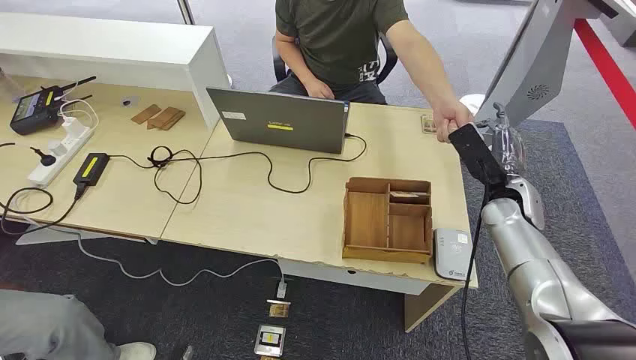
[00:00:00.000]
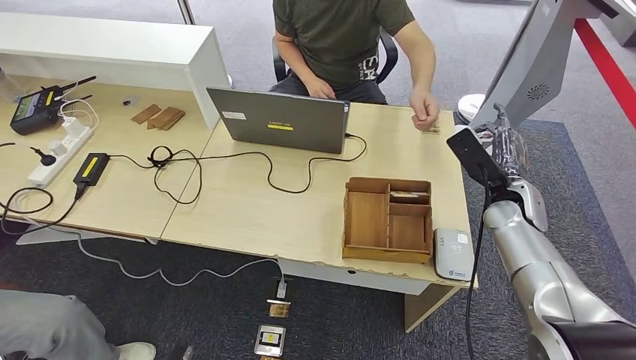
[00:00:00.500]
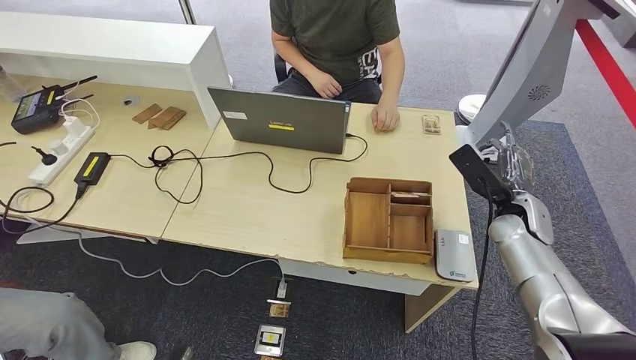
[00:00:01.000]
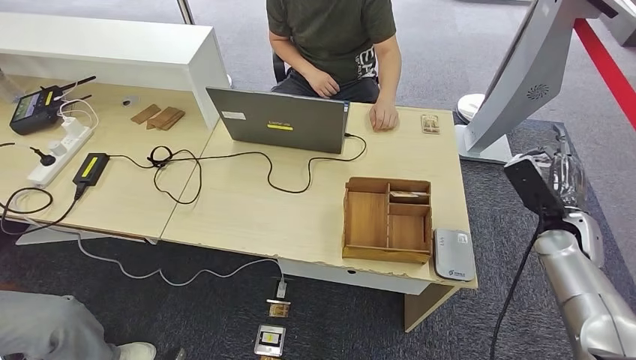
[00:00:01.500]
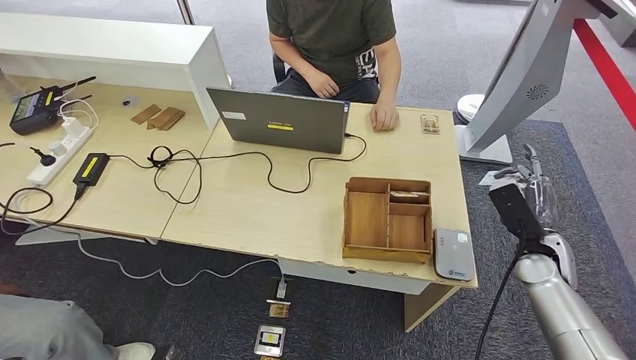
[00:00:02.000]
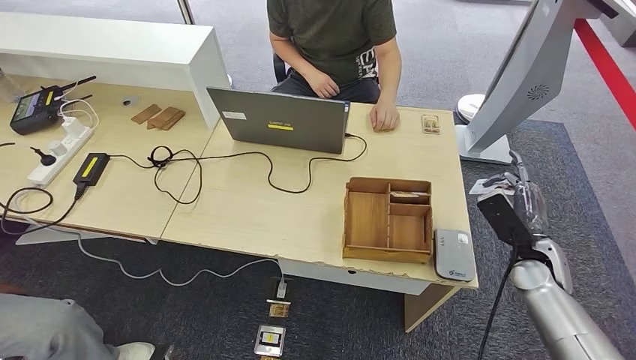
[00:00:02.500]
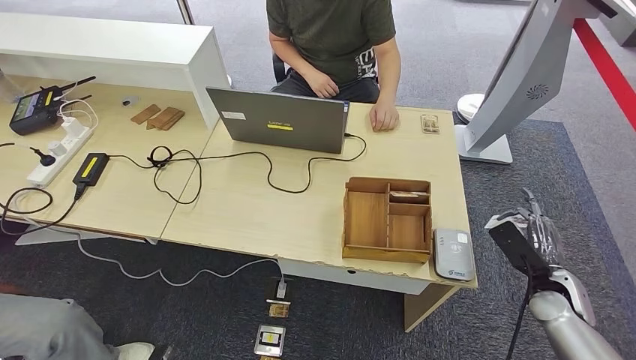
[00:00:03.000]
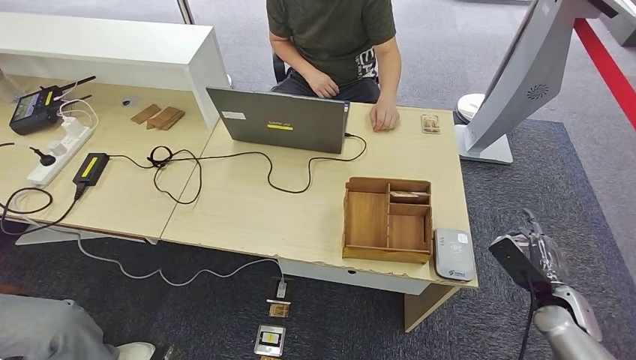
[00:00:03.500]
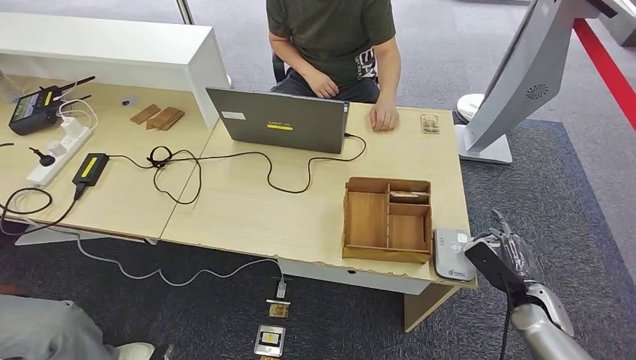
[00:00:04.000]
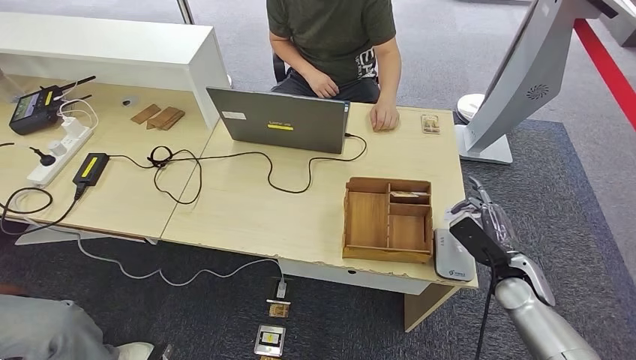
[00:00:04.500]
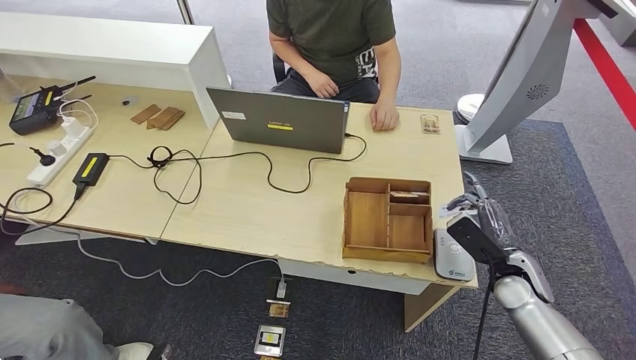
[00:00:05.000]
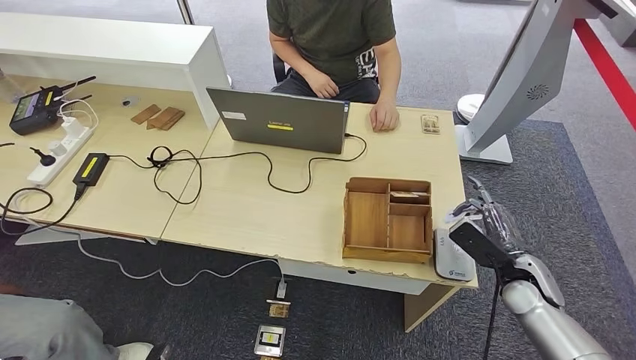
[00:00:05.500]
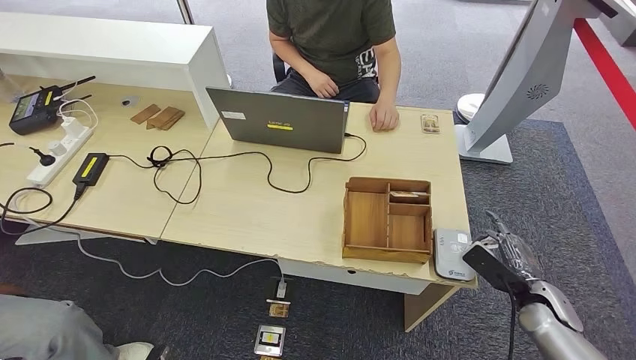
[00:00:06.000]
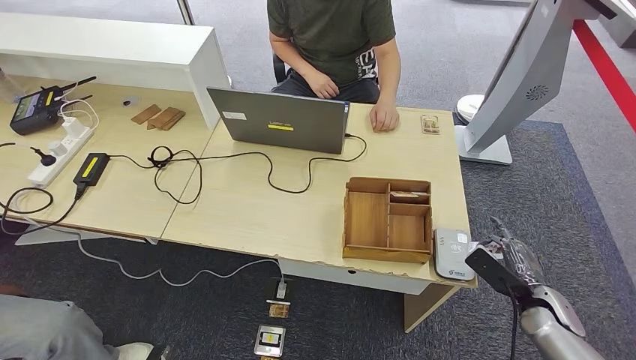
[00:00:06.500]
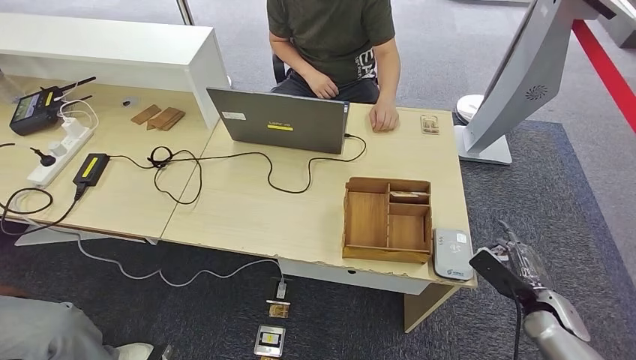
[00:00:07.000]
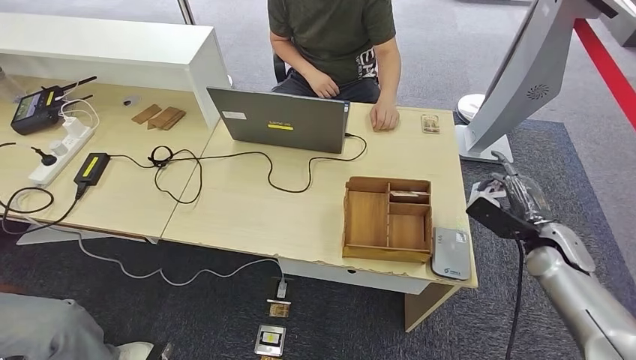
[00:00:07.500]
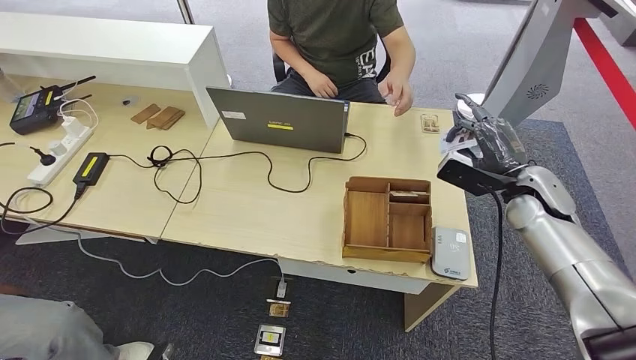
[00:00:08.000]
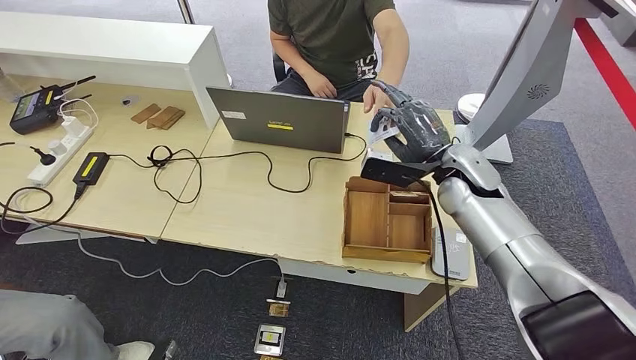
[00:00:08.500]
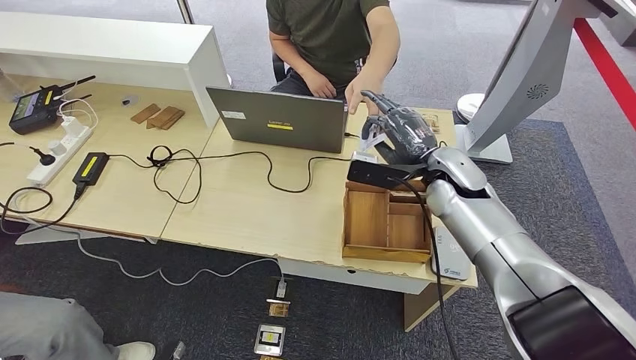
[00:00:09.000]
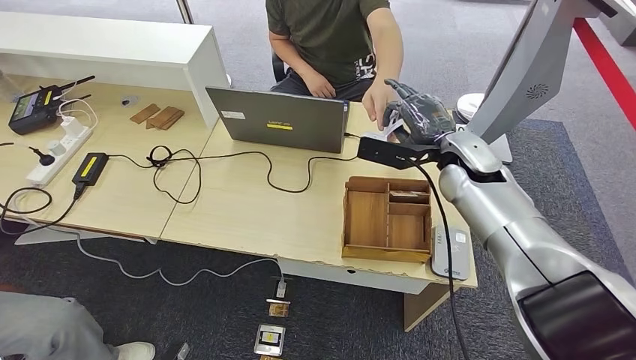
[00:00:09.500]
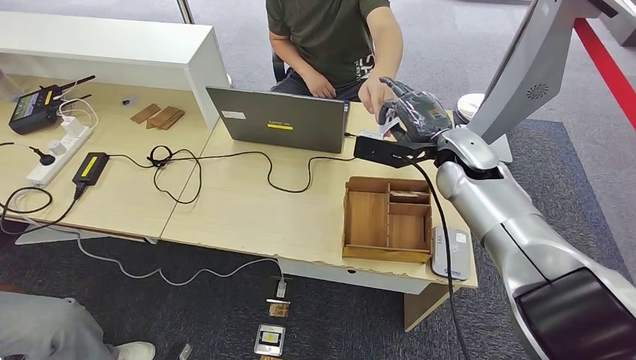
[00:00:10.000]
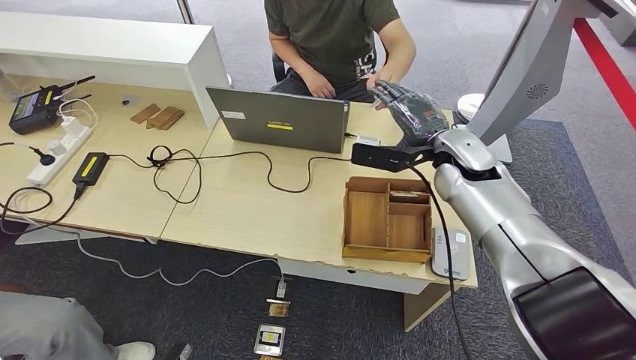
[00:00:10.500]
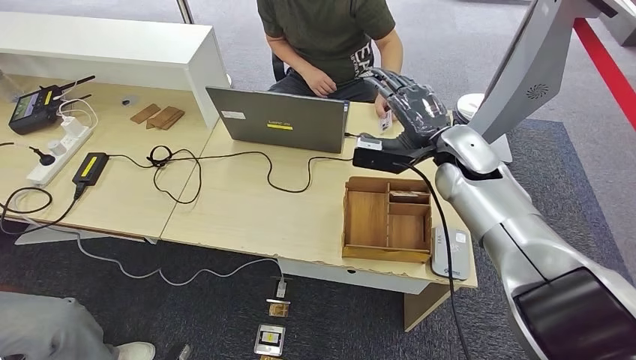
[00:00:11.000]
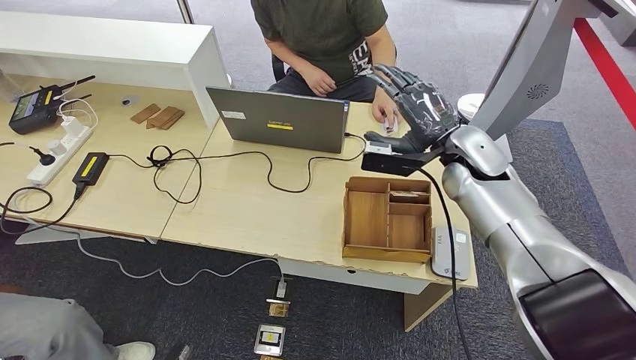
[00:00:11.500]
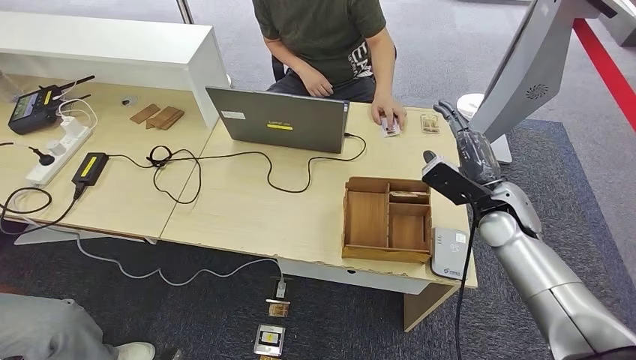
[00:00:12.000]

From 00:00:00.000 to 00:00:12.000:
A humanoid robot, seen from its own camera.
Step, from 00:00:00.000 to 00:00:01.000: Take the ID card from the person's hand.
Step, from 00:00:01.500 to 00:00:07.500: Place the ID card on the card reader.
Step, from 00:00:08.500 to 00:00:11.000: Hand the ID card to the person.
From 00:00:02.000 to 00:00:04.000: The right hand heads downward and backward, covering some 10 cm.
From 00:00:06.000 to 00:00:08.000: The right hand moves upward, forward and to the left, approximately 25 cm.
From 00:00:08.000 to 00:00:10.000: The right hand goes some 15 cm to the left.
From 00:00:10.000 to 00:00:12.000: The right hand moves to the right and downward, roughly 10 cm.

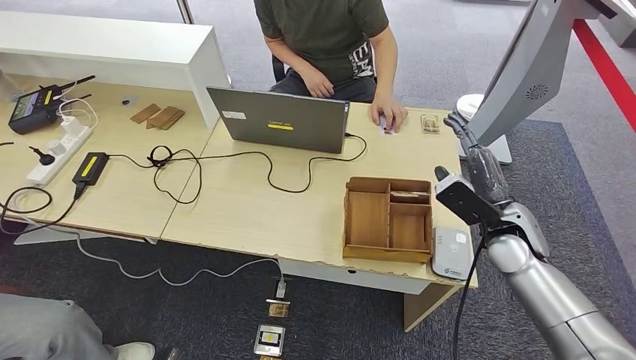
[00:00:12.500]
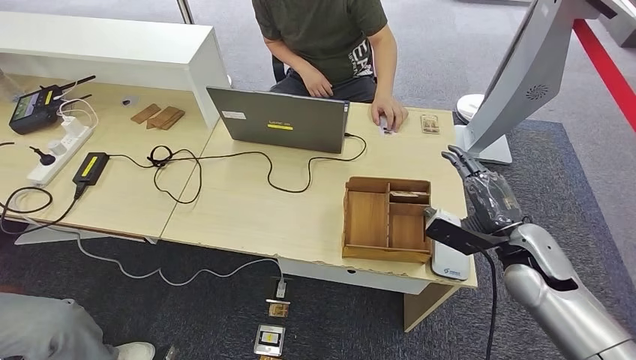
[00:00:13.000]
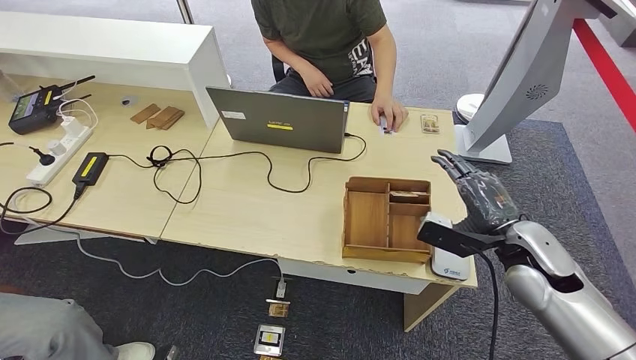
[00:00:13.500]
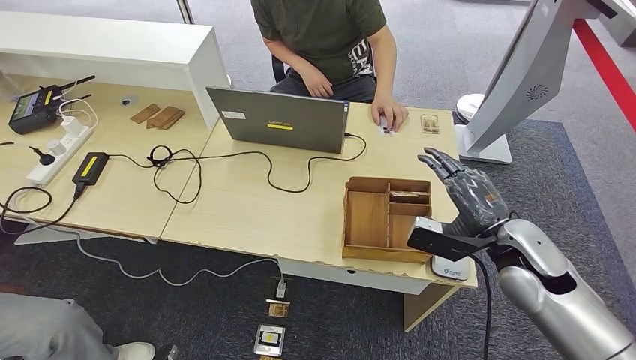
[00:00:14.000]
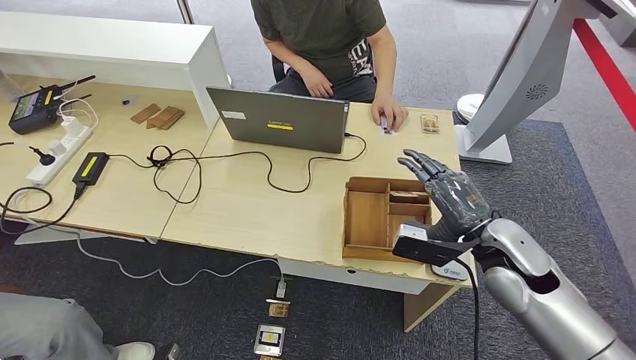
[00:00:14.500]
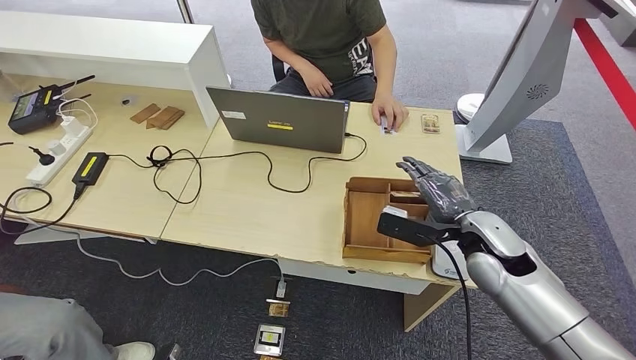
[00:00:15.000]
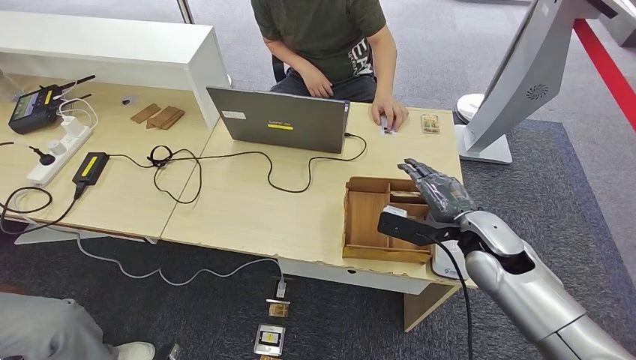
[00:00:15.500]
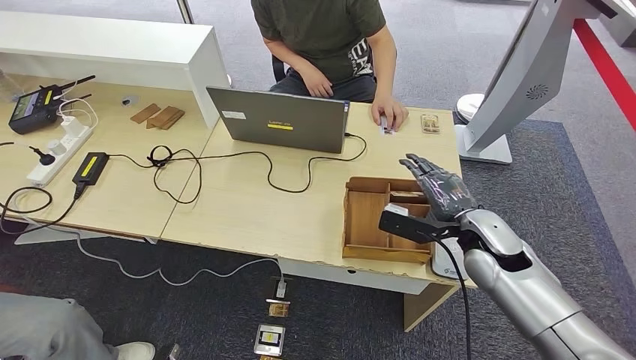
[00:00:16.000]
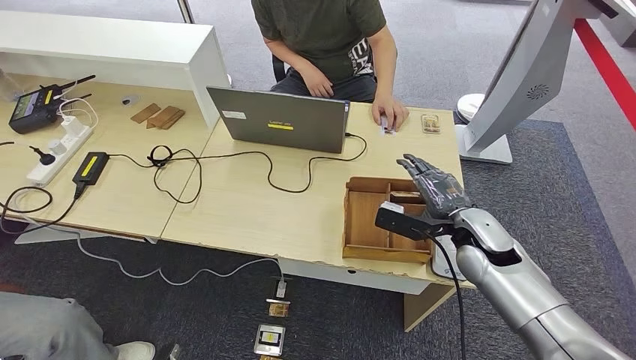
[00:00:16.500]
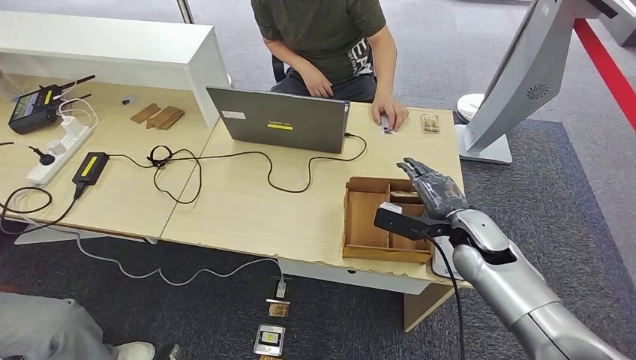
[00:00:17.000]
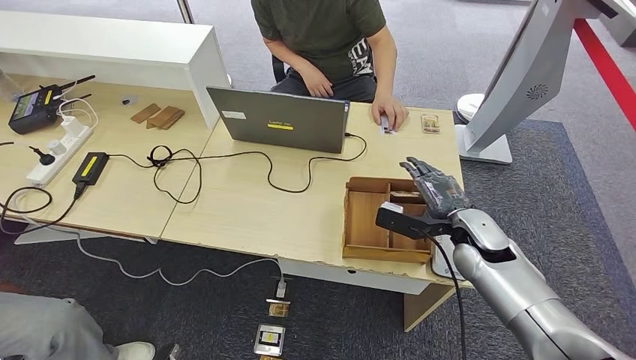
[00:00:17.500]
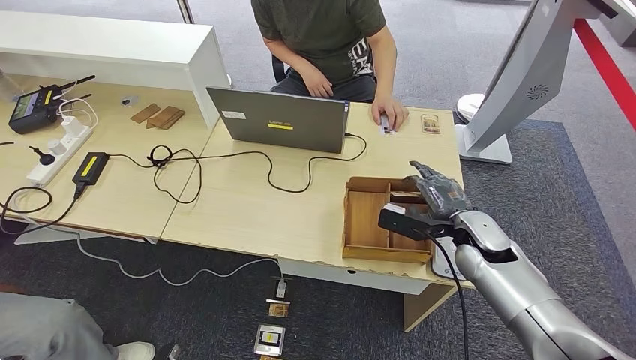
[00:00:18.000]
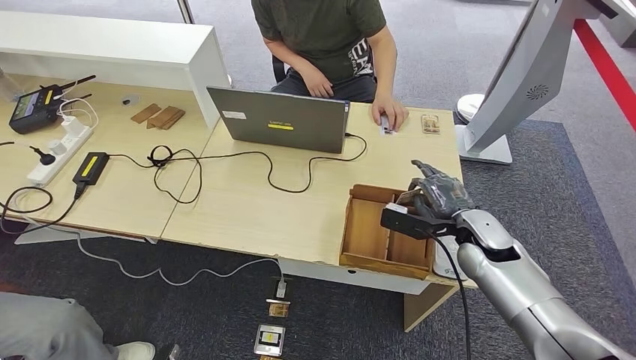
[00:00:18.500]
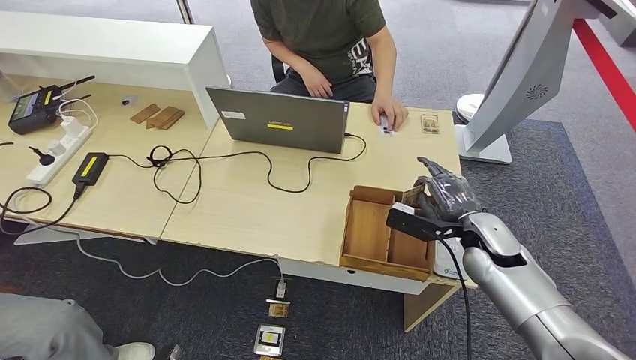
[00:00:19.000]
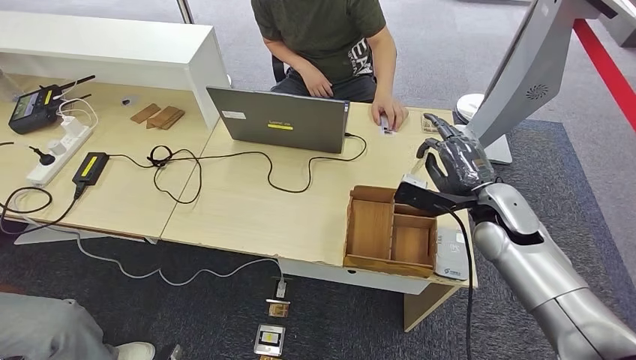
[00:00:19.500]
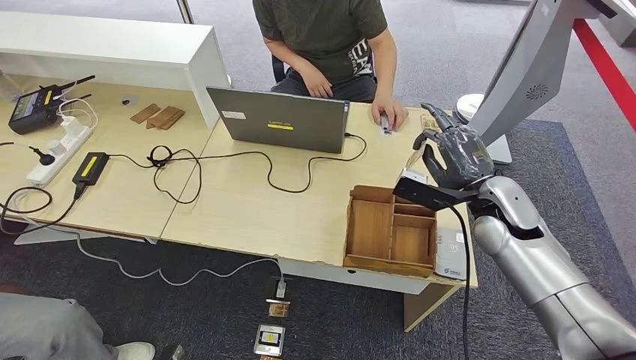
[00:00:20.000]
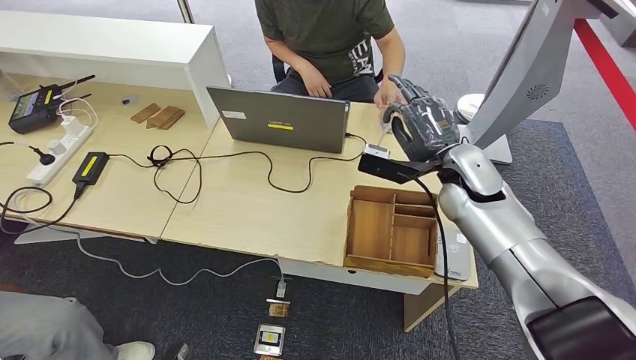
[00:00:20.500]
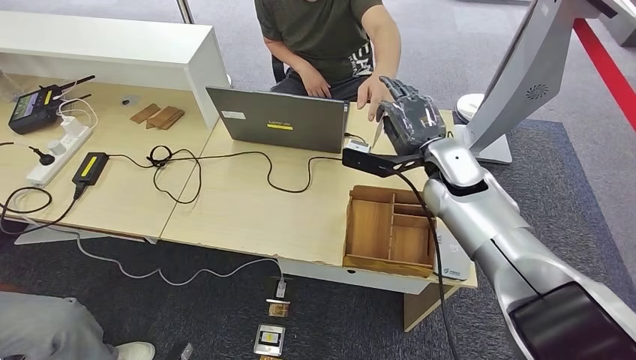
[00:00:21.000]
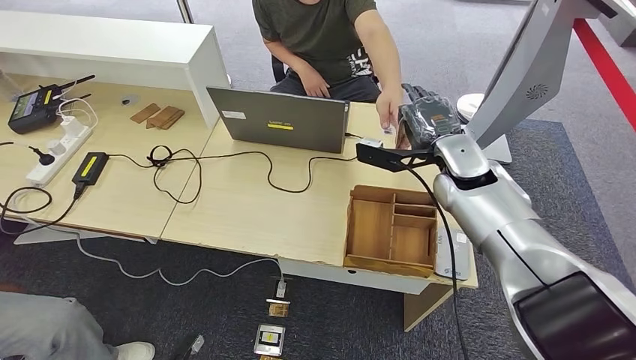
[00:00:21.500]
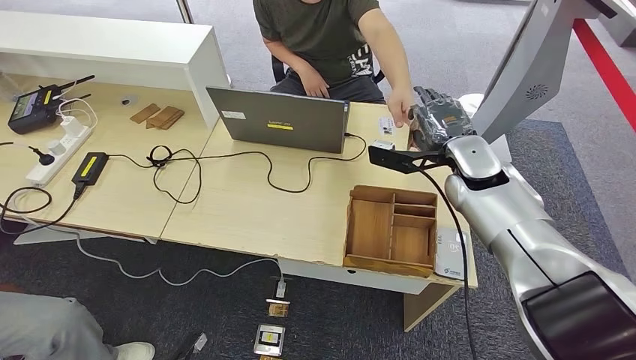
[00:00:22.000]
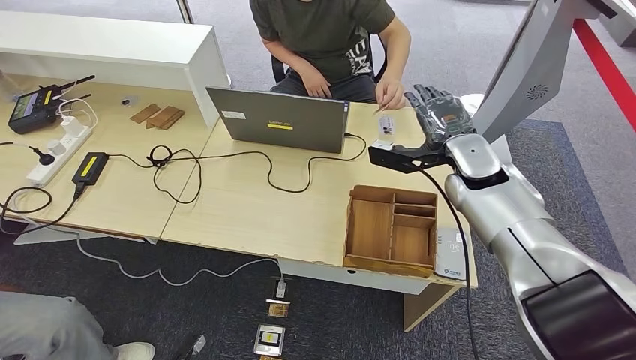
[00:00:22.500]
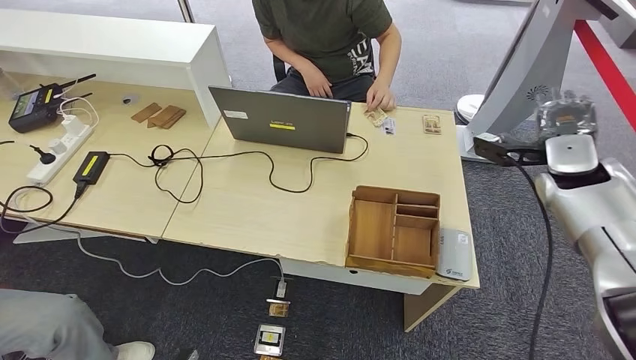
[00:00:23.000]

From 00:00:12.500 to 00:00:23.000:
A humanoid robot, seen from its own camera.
Step, from 00:00:17.500 to 00:00:20.500: Pick up the room key from the key card box.
Step, from 00:00:21.000 to 00:00:23.000: Hand the room key to the person.
From 00:00:12.500 to 00:00:14.500: The right hand changes place by some 5 cm.
From 00:00:14.500 to 00:00:16.500: The right hand ends up approximately 5 cm from where it was.
From 00:00:16.500 to 00:00:19.000: There are only small adjustments of the hands.
From 00:00:19.000 to 00:00:21.000: The right hand is displaced upward, to the left and forward by approximately 15 cm.
